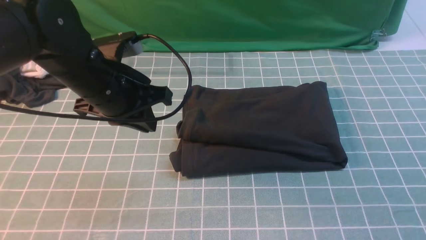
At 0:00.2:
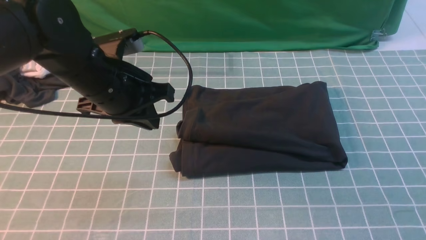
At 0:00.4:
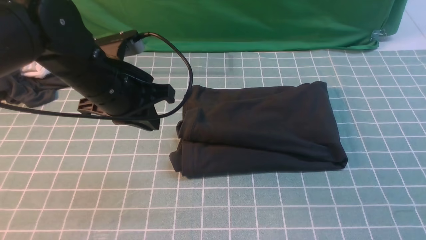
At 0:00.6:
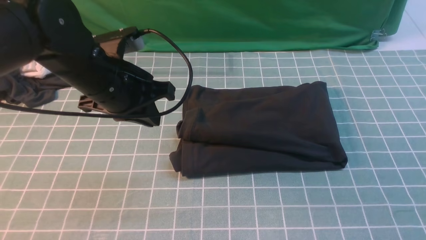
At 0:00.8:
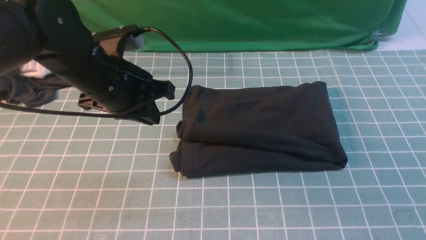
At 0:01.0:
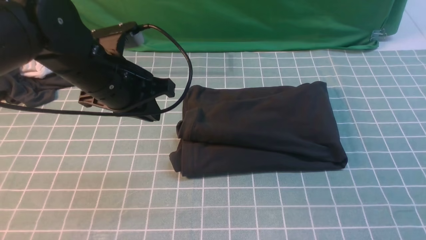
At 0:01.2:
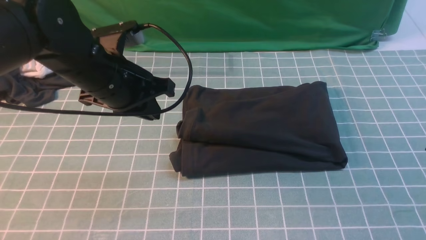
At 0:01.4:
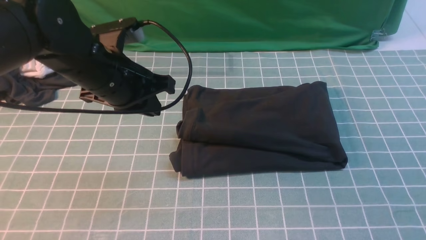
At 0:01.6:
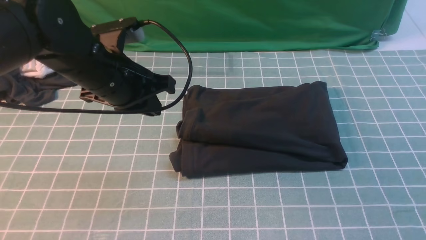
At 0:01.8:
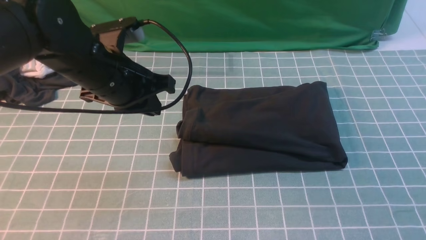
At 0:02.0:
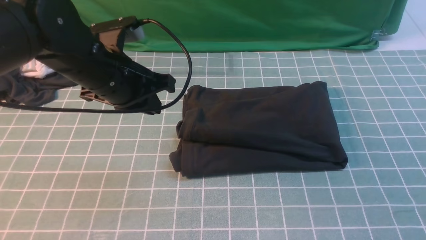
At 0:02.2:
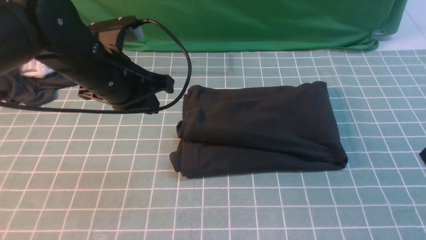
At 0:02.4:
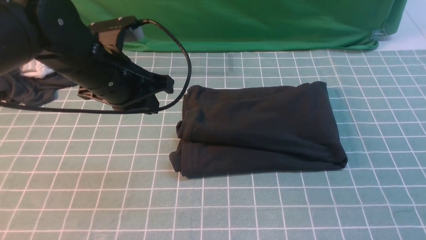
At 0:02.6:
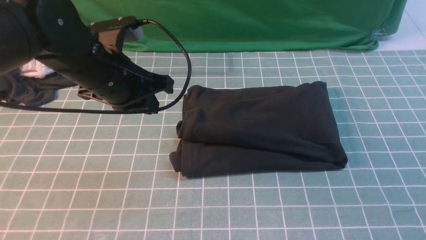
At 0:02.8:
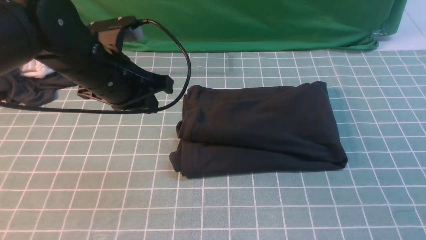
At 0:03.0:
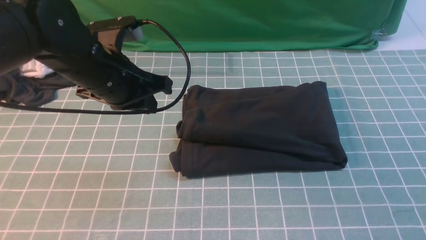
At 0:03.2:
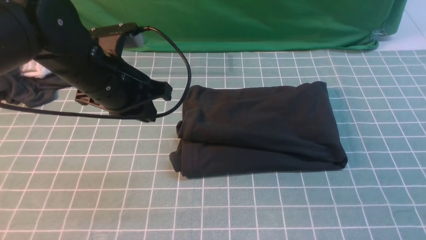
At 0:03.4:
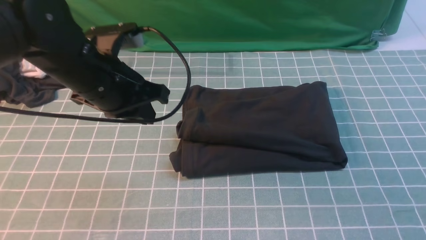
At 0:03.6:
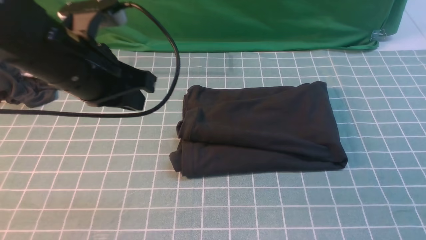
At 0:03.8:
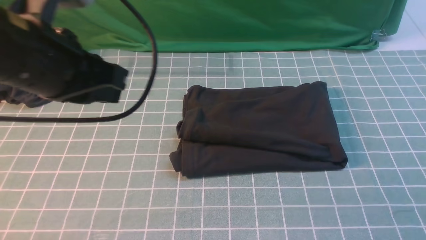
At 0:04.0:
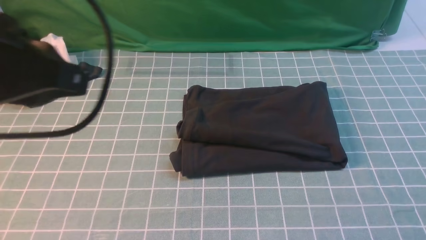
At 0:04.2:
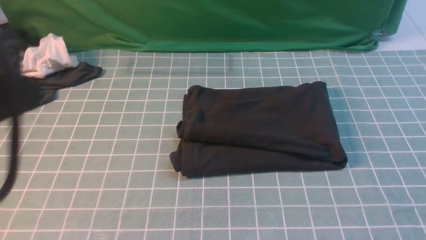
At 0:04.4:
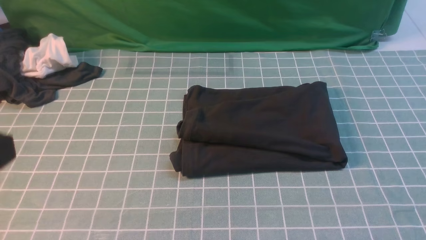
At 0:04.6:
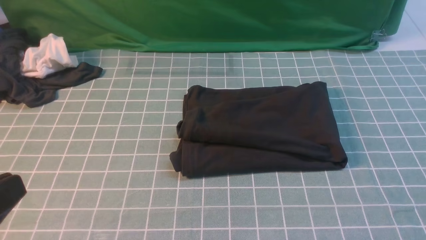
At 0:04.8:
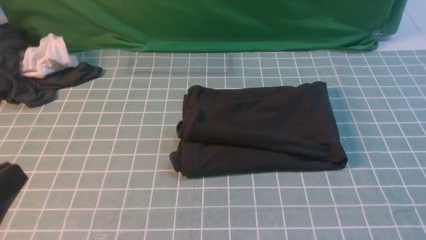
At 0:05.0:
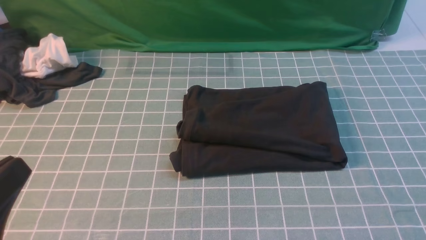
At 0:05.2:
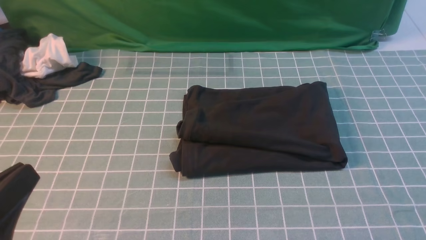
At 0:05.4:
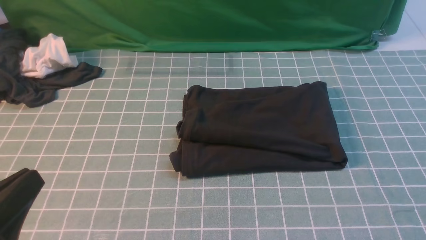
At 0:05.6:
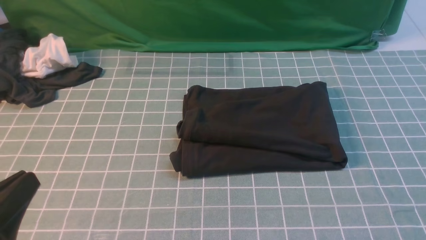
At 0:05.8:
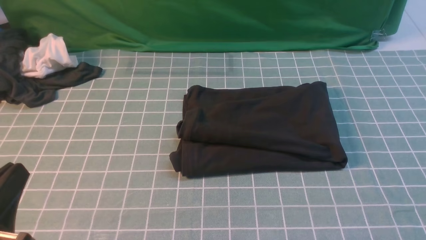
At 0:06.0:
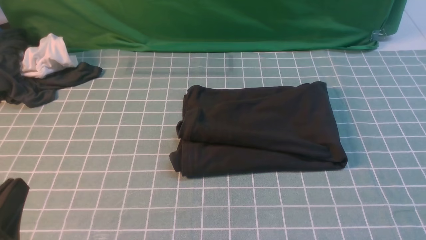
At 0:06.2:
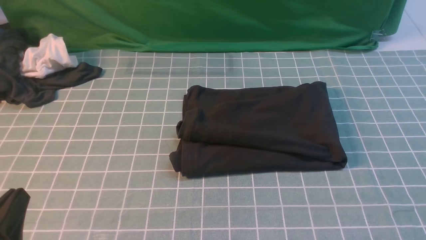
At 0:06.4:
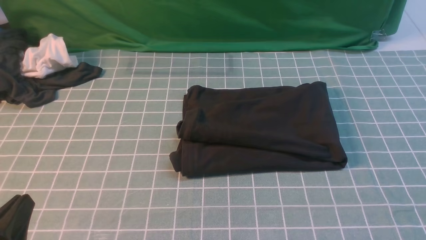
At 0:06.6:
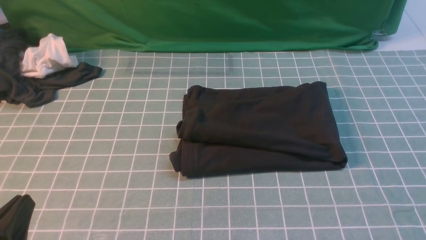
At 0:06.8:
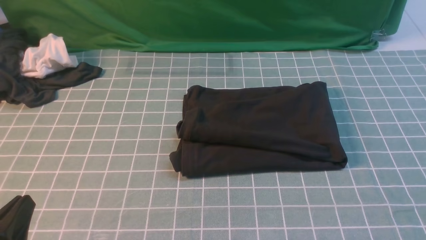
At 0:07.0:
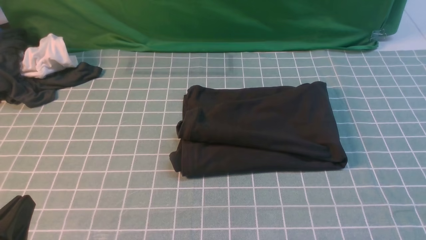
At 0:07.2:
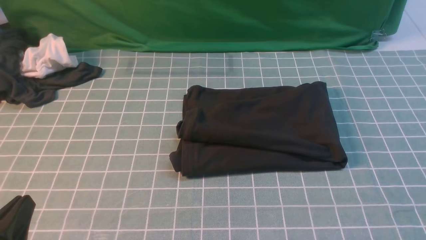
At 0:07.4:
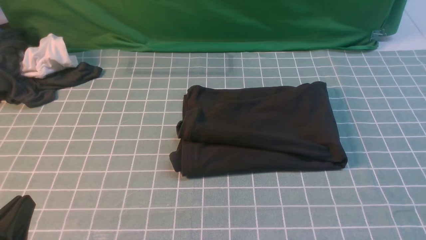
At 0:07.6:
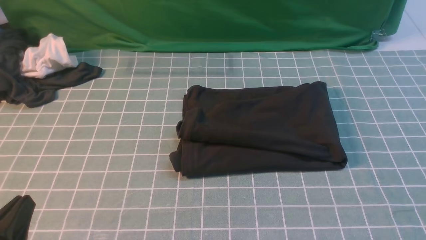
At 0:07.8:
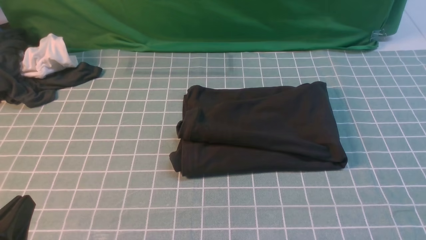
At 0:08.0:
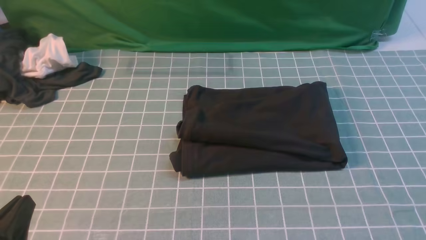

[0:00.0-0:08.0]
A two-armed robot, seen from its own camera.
0:00.0 to 0:01.6: The right gripper travels downward by approximately 5 cm.
0:01.6 to 0:03.2: The right gripper moves downward, approximately 5 cm.
0:03.2 to 0:04.8: The left gripper moves backward, approximately 25 cm.
0:04.8 to 0:06.4: The left gripper travels downward by roughly 10 cm.
0:06.4 to 0:08.0: Both grippers stay put.

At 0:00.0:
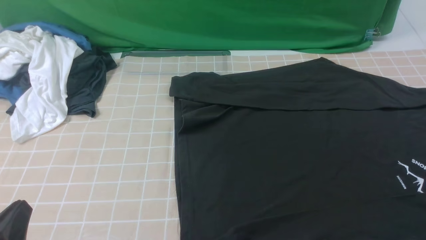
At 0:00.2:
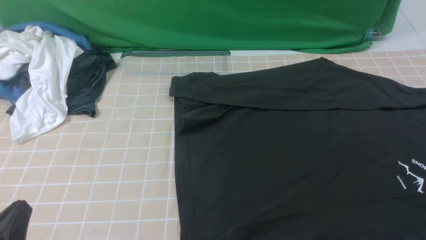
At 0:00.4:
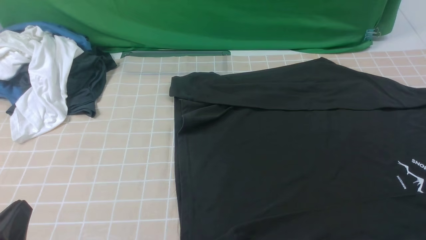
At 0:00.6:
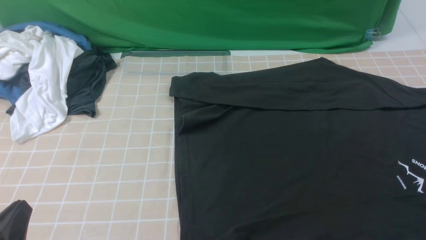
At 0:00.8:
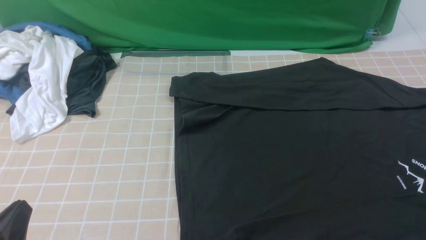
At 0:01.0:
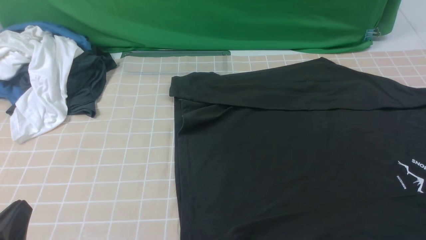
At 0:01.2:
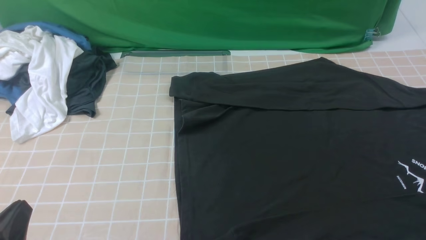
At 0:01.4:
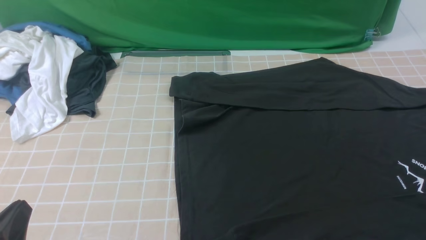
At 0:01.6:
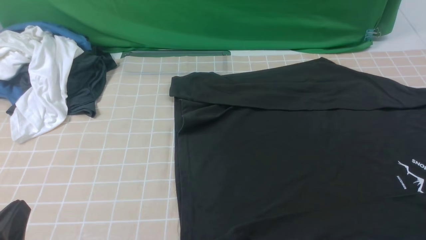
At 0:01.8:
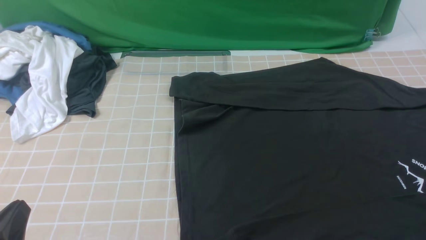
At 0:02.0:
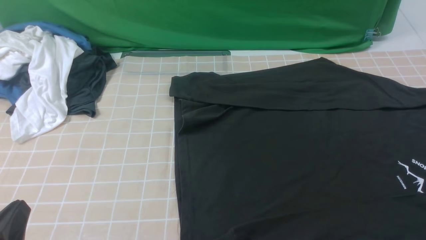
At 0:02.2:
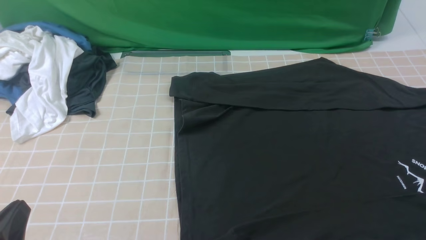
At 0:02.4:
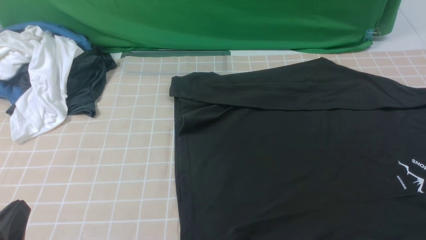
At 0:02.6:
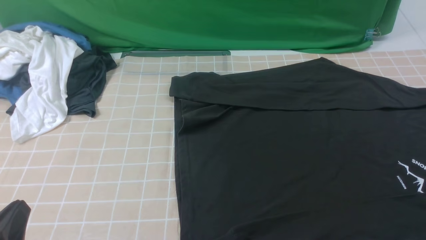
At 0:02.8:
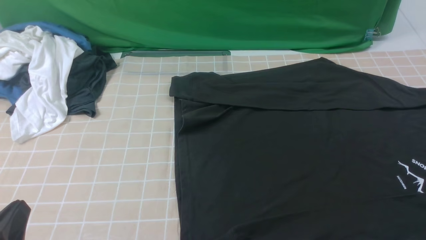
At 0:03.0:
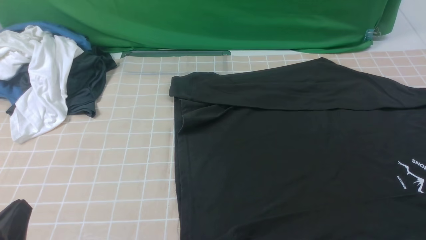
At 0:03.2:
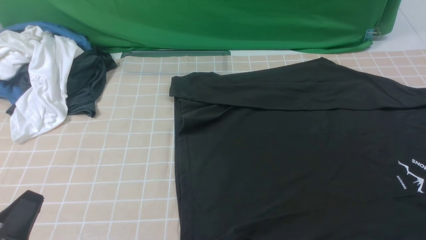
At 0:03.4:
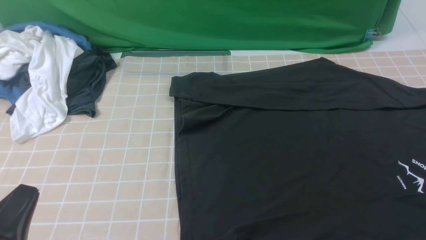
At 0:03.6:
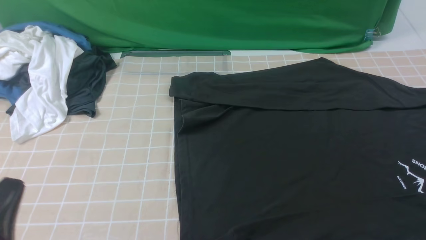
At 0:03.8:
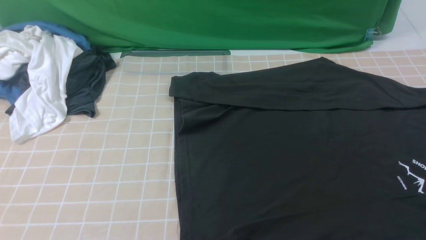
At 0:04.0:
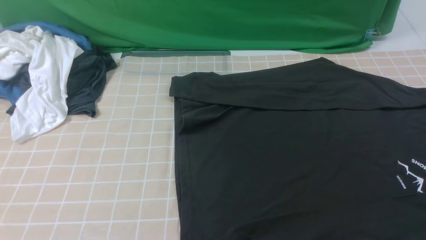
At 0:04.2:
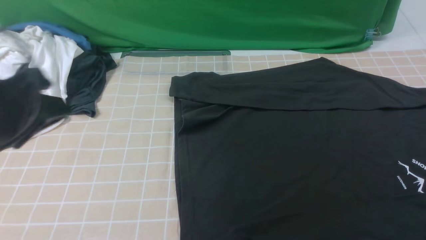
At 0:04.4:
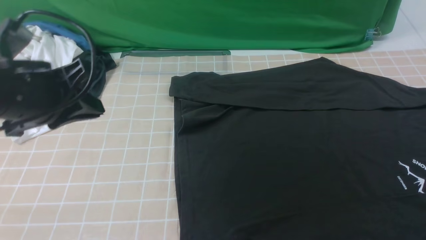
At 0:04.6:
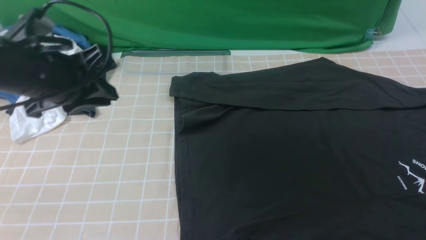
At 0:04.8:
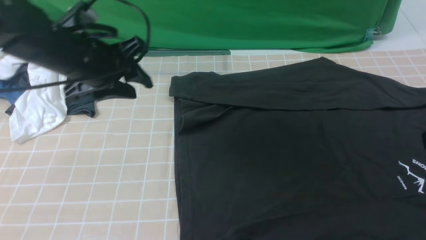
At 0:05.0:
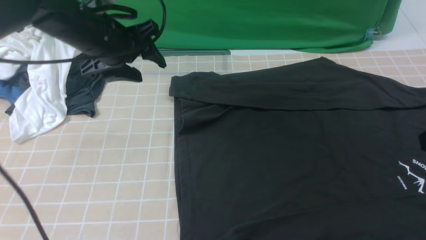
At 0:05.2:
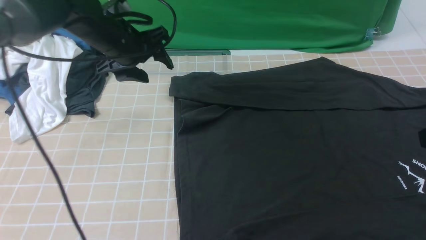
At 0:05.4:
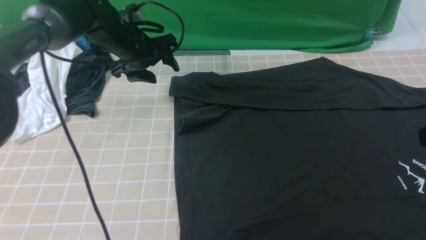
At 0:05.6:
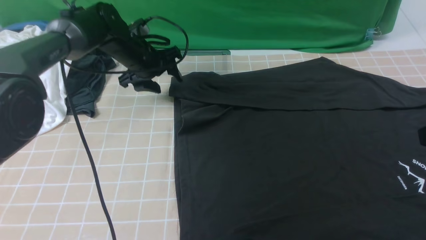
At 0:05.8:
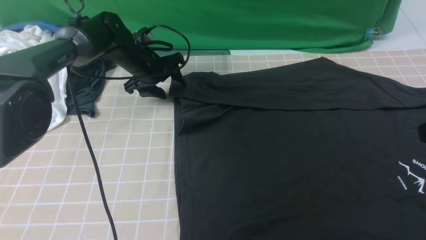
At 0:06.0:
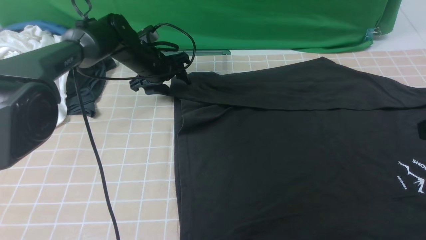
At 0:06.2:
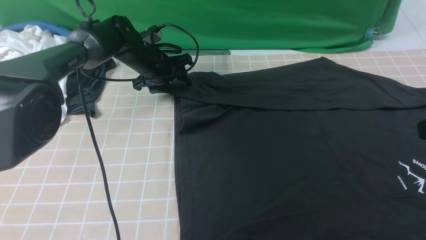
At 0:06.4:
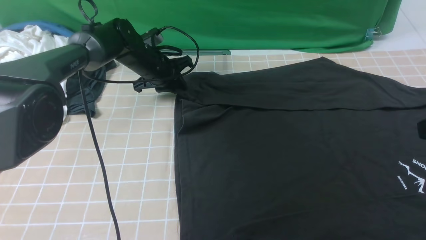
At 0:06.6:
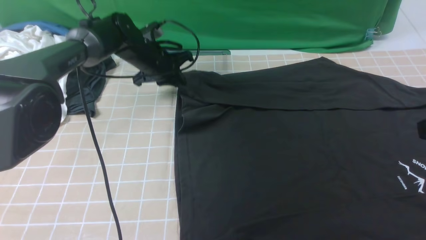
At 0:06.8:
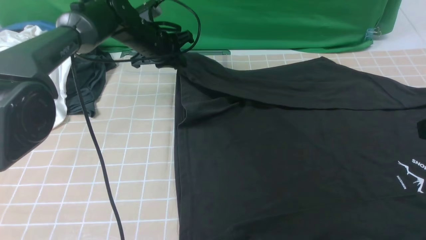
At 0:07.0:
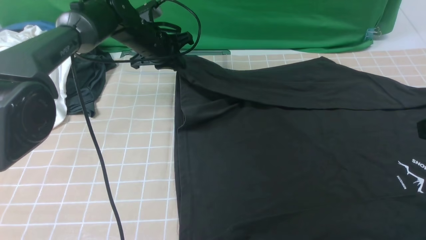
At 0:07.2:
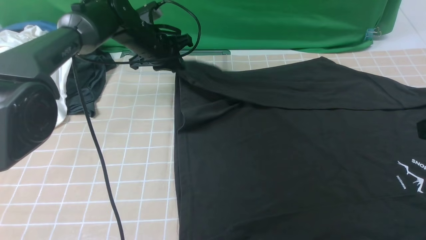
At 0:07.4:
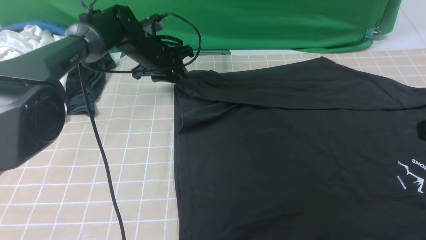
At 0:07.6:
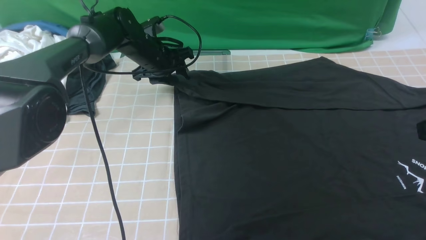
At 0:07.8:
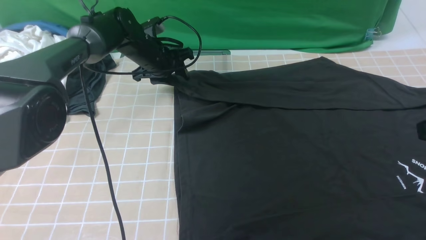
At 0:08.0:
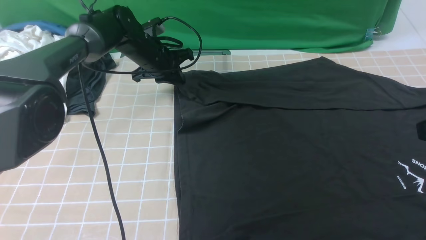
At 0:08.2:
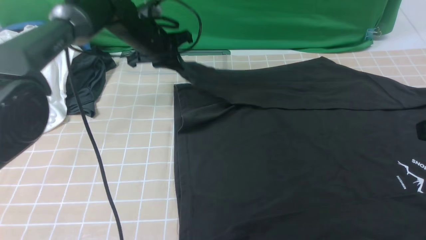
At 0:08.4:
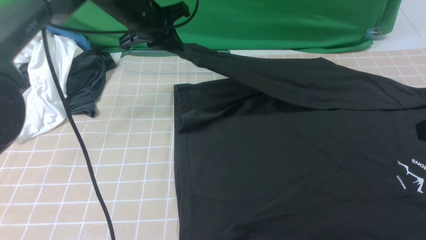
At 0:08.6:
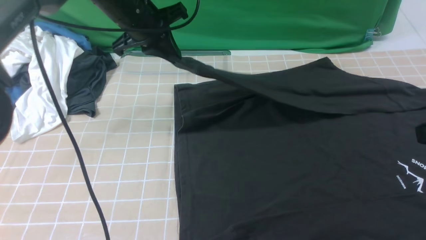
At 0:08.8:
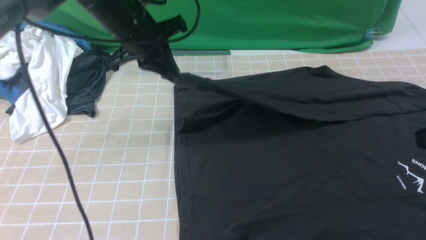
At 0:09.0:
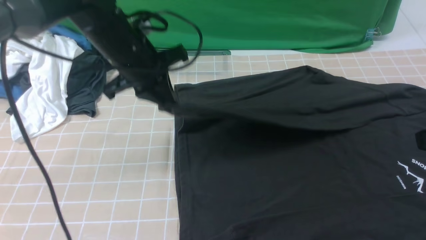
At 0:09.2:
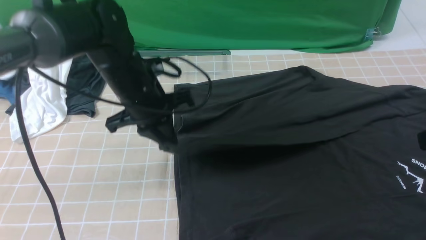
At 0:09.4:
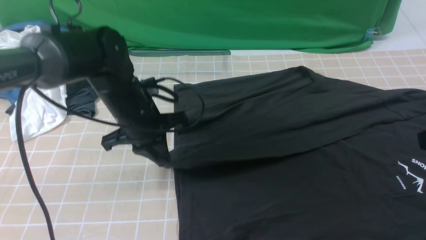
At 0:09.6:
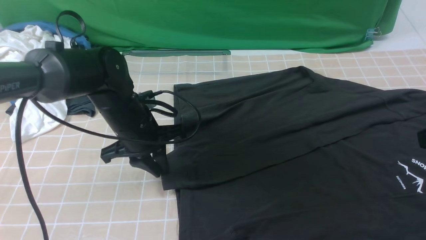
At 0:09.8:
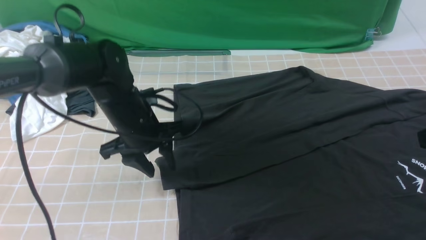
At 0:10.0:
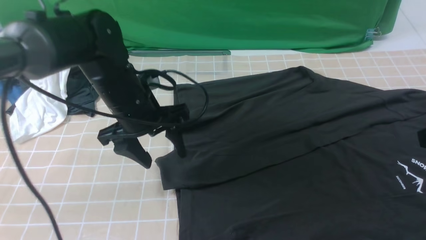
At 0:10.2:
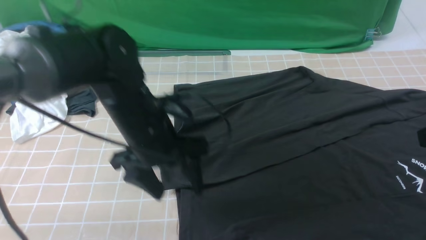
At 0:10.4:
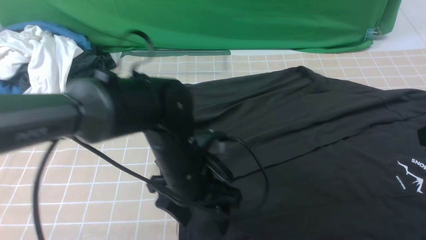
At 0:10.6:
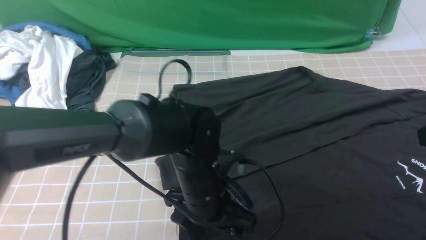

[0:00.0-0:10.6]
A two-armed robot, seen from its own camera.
Step, 0:00.0 to 0:08.0: use the left arm to clamp the cuff farthest from it.
Step, 0:08.2 to 0:09.6: use the left arm to drag and place the cuff at the centered position on the left edge of the fabric.
0:00.0 to 0:01.6: The two grippers keep their place.
0:03.0 to 0:04.6: The left gripper goes about 25 cm forward and upward.
0:04.6 to 0:06.0: The left gripper shifts about 25 cm forward and downward, and opens.
0:06.0 to 0:07.6: The left gripper closes, then opens again.
0:07.6 to 0:09.0: The left gripper travels backward and upward by about 15 cm, and closes its fingers.
0:09.0 to 0:10.6: The left gripper heads backward, to the right and downward, covering about 20 cm, and opens its fingers.
